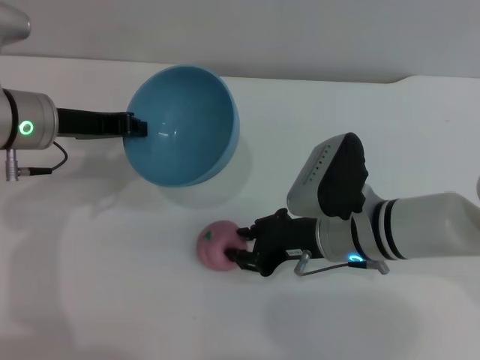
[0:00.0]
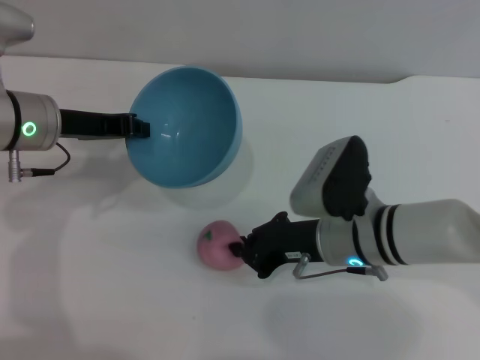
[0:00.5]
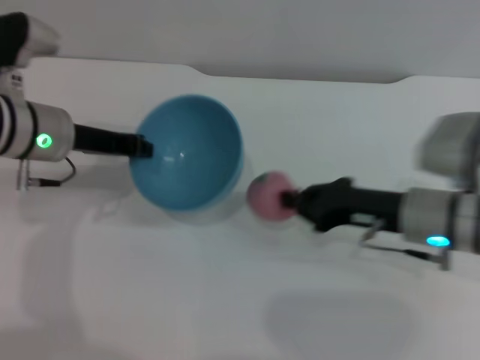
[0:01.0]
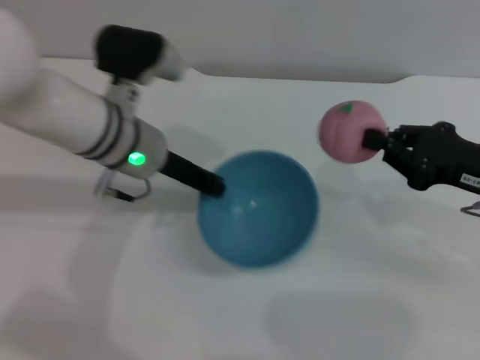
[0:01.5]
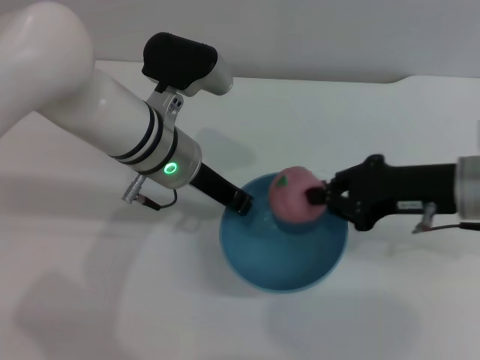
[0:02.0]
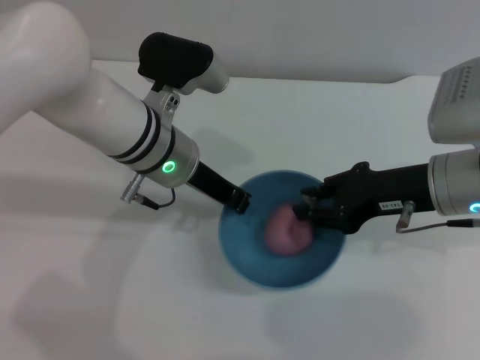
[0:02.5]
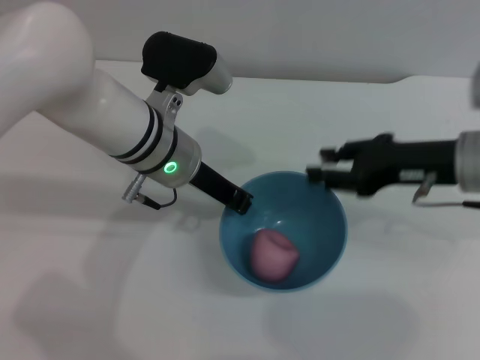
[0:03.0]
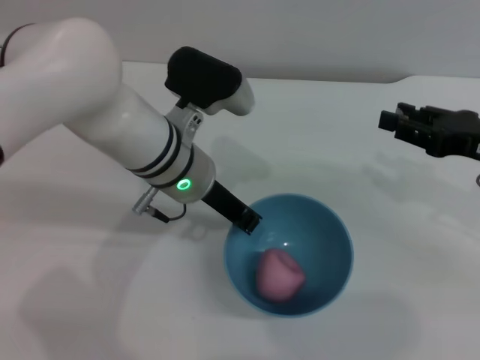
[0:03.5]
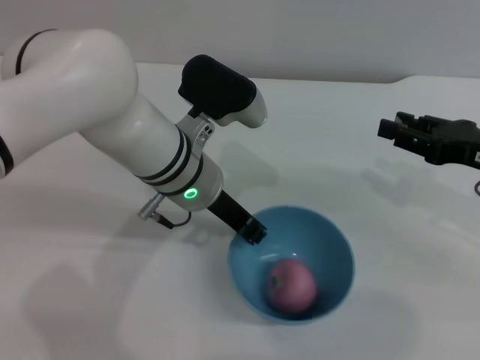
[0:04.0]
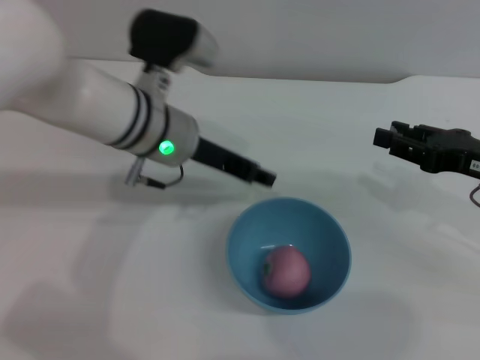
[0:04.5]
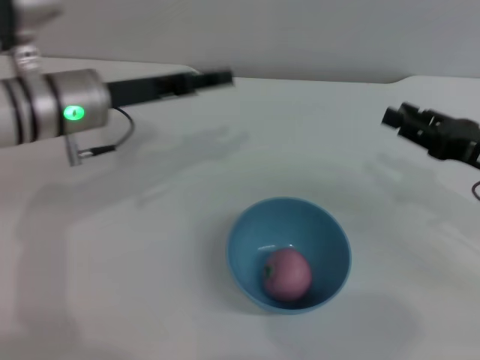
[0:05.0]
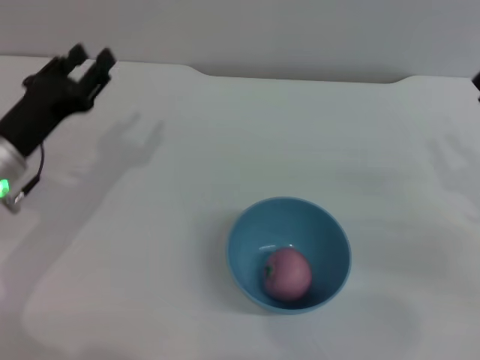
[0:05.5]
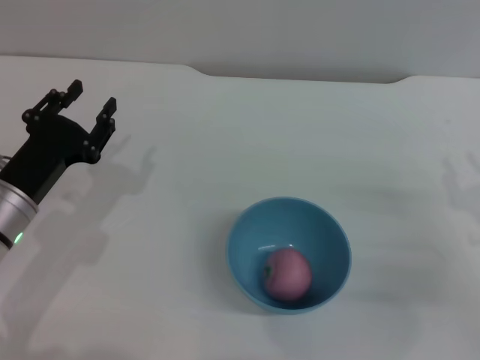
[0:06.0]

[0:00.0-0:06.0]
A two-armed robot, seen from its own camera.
Task of the whole recording: put the peach into the blue bowl and pour it out repeatedly.
Step, 0:01.5 to 0:02.5: Place the peach into the bowl.
Step, 0:03.5 to 0:04.5: Place the bowl on the table.
0:00.0 to 0:02.0: The right gripper goes approximately 15 cm to the right and upward, and closes up. Meanwhile the left gripper shifts some 15 cm to the right.
0:02.0 to 0:04.0: The right gripper is displaced to the right by approximately 5 cm, and opens.
0:04.0 to 0:06.0: The right gripper shifts some 10 cm downward and backward; the left gripper travels to the left and backward by some 20 cm, and opens up.
